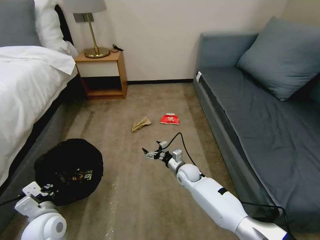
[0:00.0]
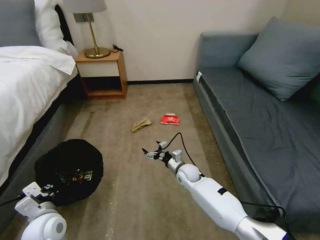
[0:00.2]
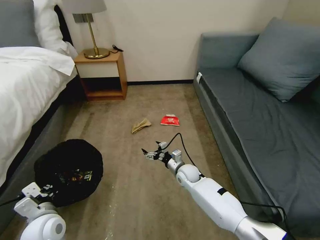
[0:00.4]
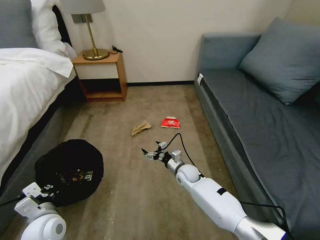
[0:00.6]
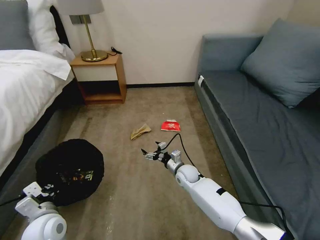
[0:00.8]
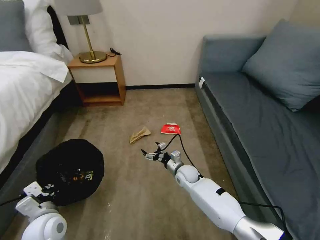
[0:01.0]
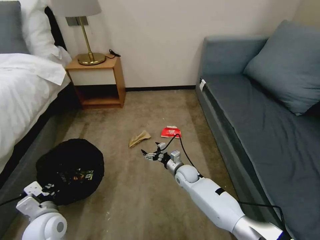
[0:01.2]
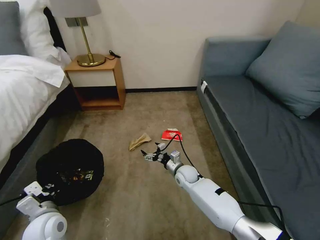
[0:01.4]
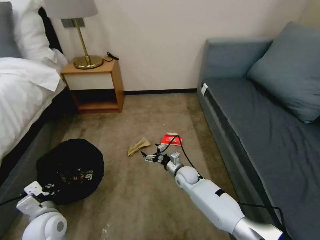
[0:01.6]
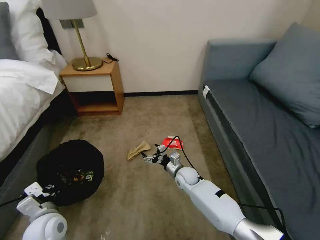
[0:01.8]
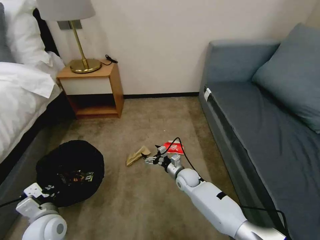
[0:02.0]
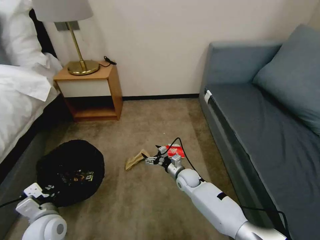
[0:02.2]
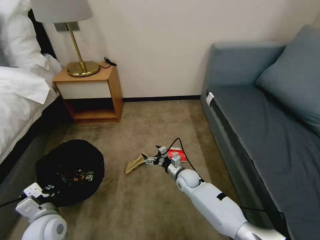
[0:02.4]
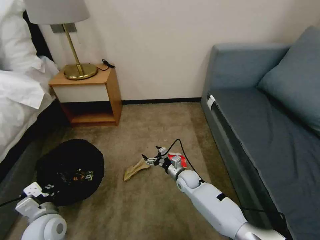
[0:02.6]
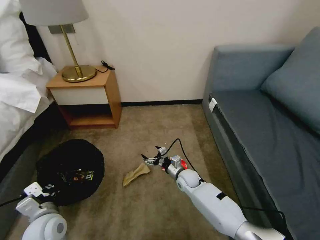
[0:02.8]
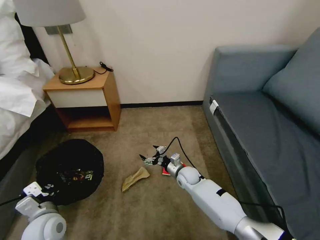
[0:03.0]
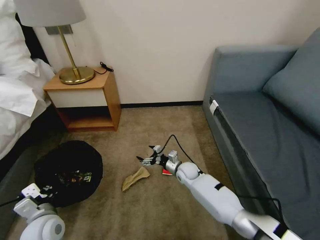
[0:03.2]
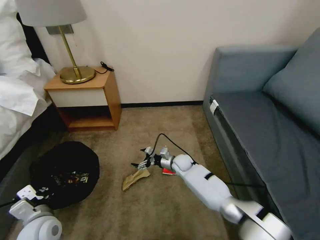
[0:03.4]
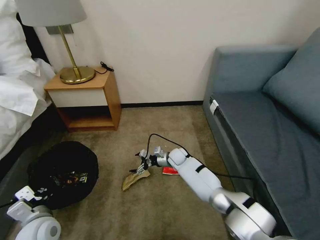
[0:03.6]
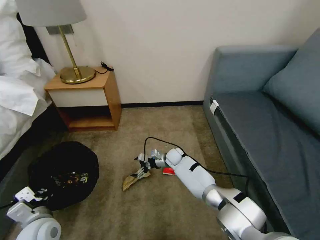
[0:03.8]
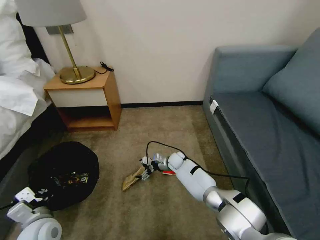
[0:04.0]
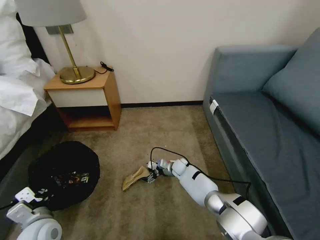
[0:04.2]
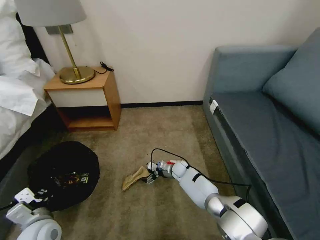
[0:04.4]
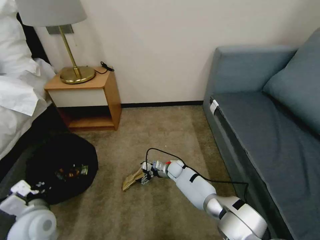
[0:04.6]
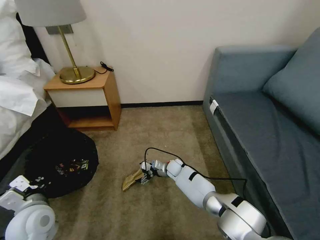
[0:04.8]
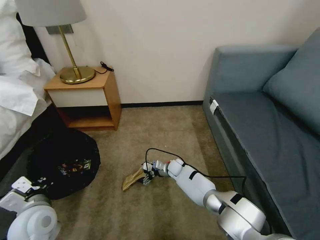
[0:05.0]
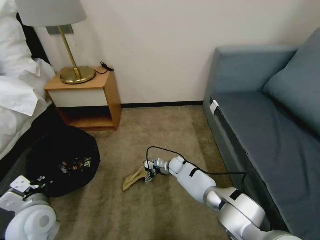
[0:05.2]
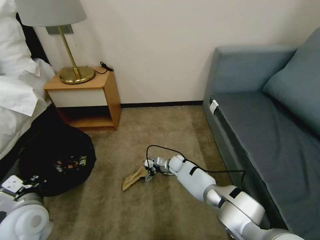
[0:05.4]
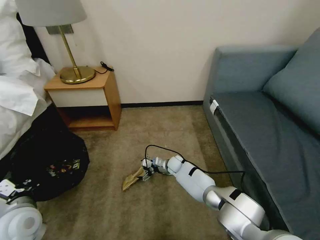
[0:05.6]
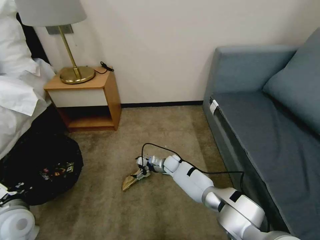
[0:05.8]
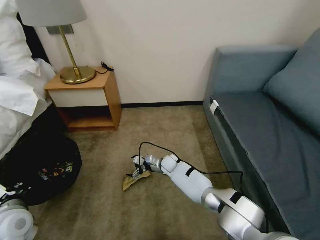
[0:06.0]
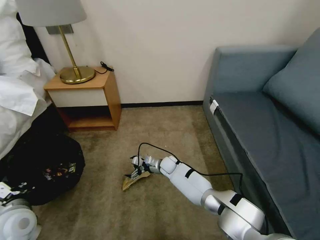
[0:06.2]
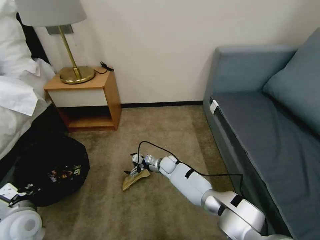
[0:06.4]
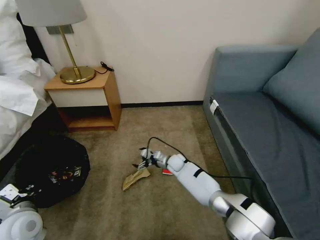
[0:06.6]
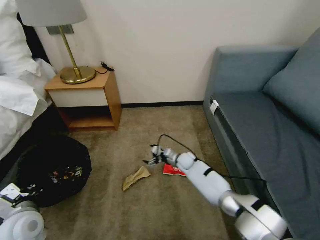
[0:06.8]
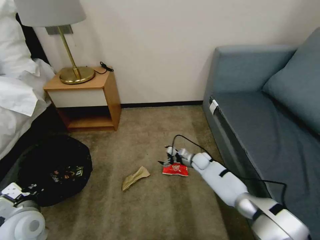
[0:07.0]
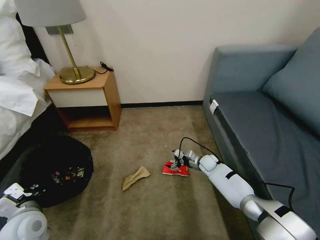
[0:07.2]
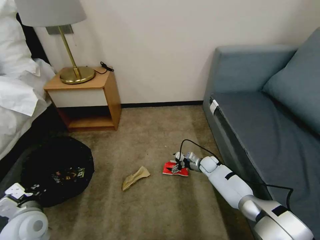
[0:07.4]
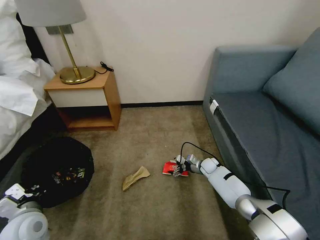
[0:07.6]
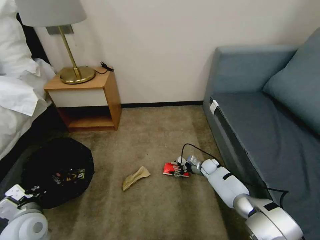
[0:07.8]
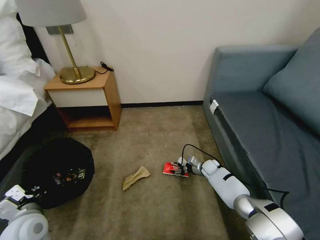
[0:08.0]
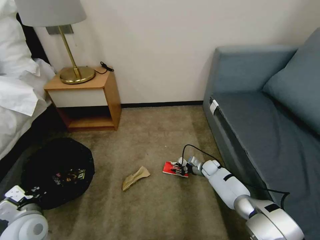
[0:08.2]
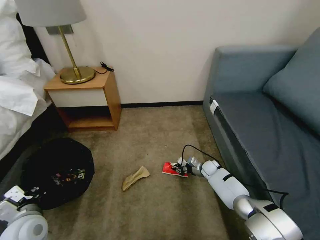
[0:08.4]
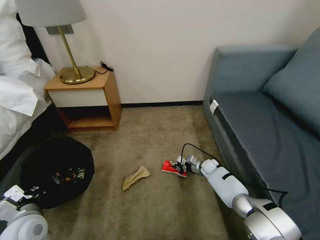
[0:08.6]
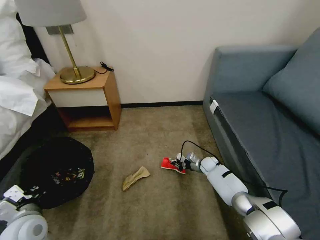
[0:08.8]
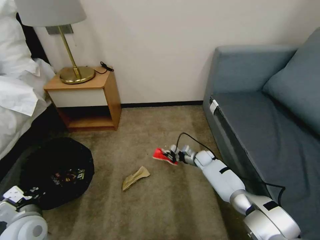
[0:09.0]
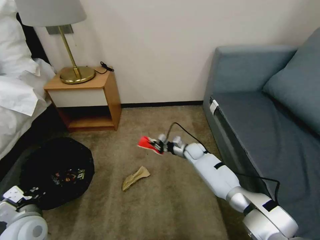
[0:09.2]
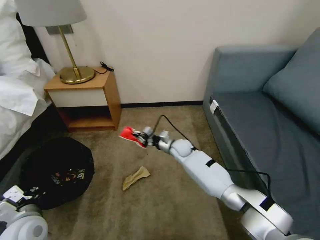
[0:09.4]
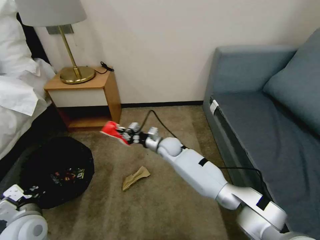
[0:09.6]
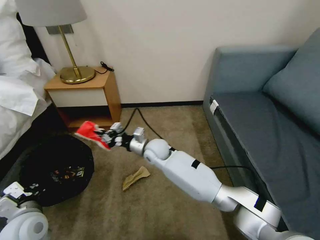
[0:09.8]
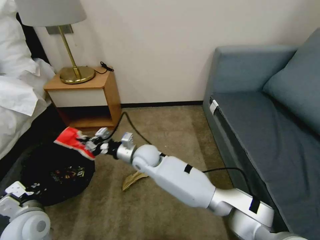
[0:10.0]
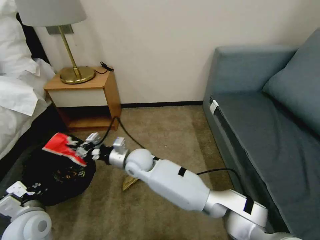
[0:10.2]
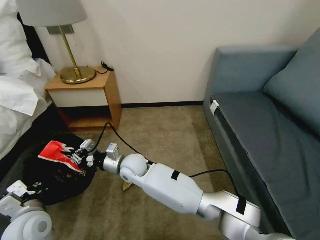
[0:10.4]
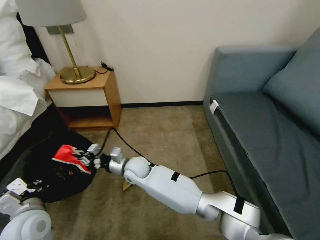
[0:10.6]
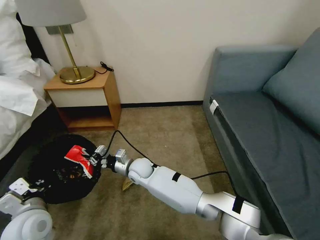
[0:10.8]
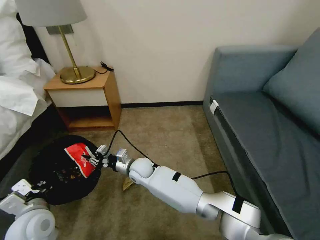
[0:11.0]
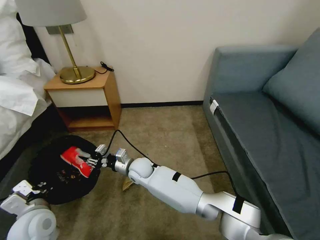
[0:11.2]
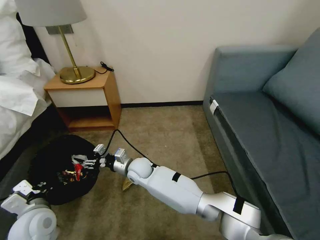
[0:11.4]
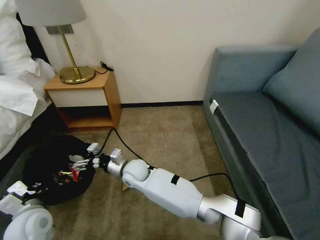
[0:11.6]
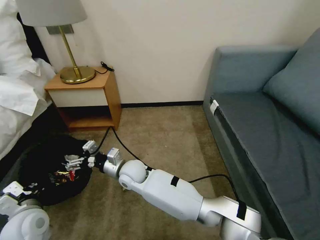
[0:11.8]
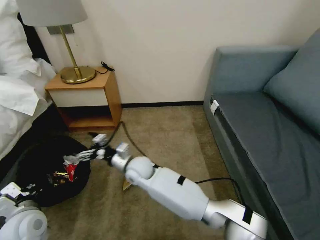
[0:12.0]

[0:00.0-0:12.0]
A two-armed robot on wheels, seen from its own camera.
Task of the whole recording: Pick up the trash bin, then pick up the garbage on the floor and place it into the trash bin.
0:03.0 to 0:04.4: The right gripper goes some 10 cm forward and downward.
0:04.4 to 0:06.0: The two grippers go about 5 cm to the left.
0:06.0 to 0:07.6: The right gripper travels to the right by roughly 20 cm.
0:07.6 to 0:09.0: The right gripper closes.
0:09.0 to 0:10.4: The right gripper travels to the left and upward by some 35 cm.
0:10.4 to 0:12.0: The right gripper opens its fingers.

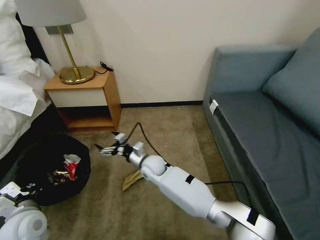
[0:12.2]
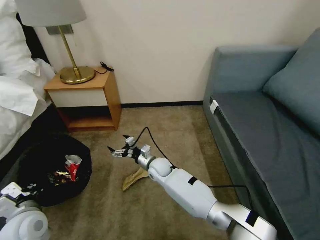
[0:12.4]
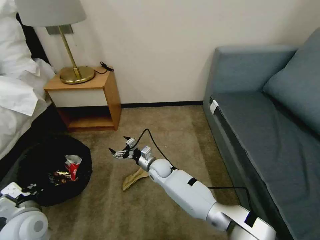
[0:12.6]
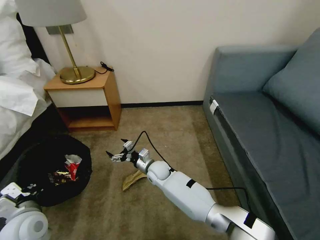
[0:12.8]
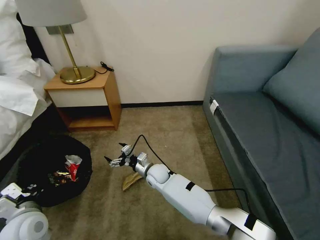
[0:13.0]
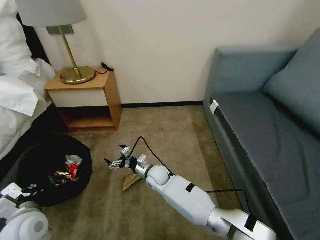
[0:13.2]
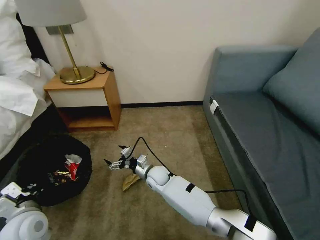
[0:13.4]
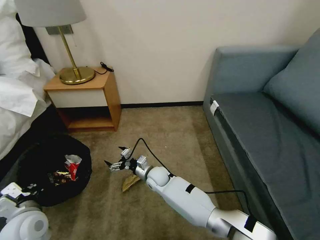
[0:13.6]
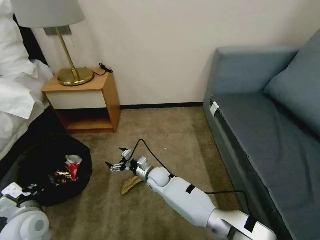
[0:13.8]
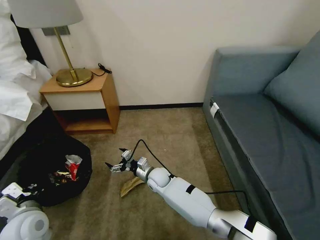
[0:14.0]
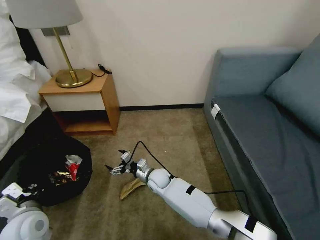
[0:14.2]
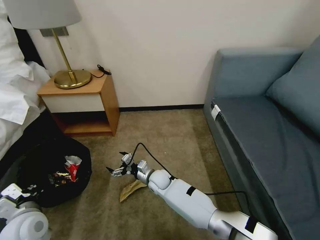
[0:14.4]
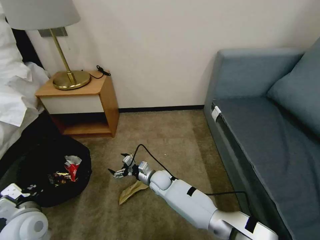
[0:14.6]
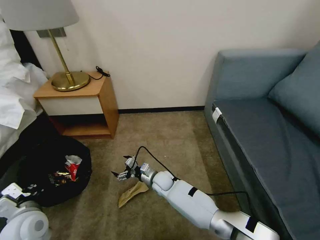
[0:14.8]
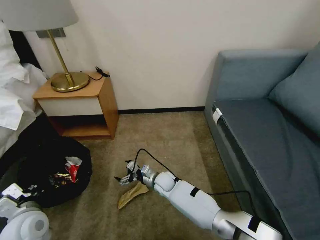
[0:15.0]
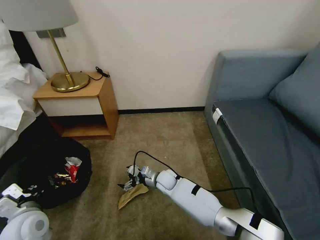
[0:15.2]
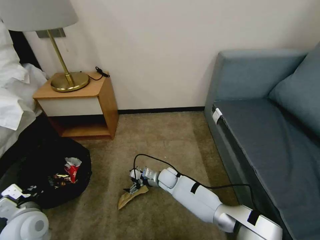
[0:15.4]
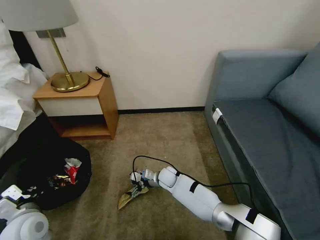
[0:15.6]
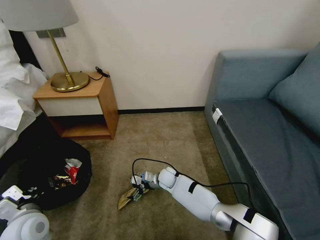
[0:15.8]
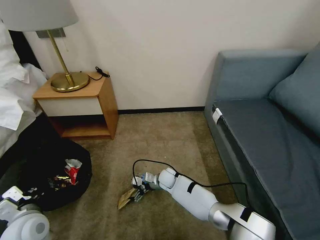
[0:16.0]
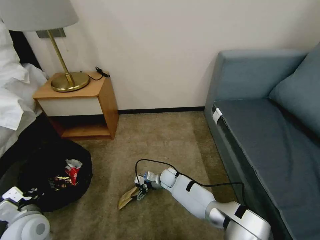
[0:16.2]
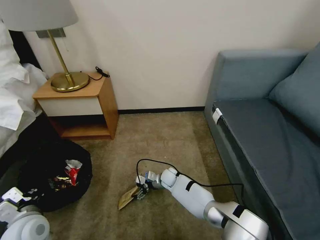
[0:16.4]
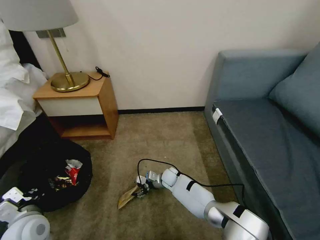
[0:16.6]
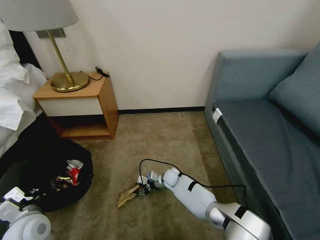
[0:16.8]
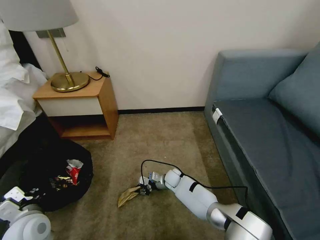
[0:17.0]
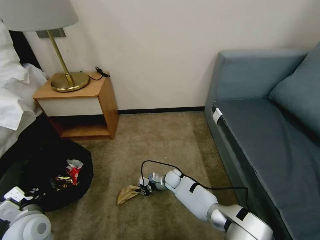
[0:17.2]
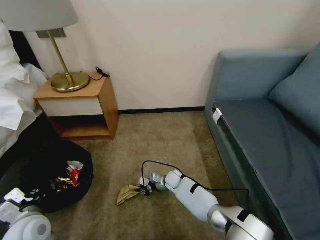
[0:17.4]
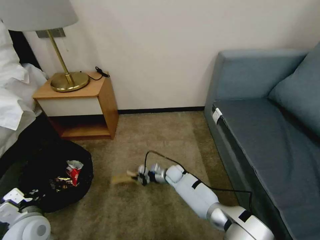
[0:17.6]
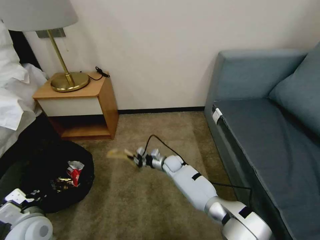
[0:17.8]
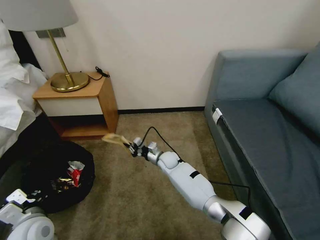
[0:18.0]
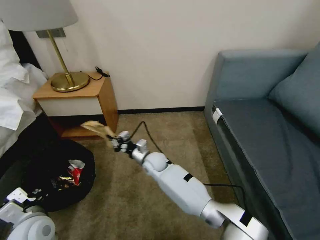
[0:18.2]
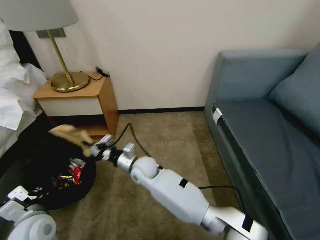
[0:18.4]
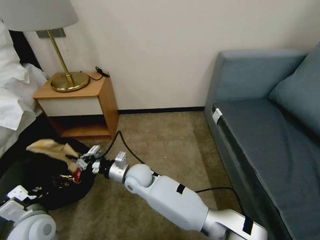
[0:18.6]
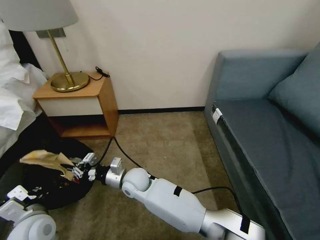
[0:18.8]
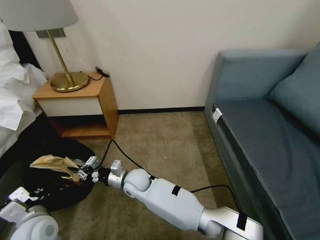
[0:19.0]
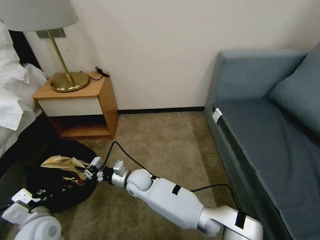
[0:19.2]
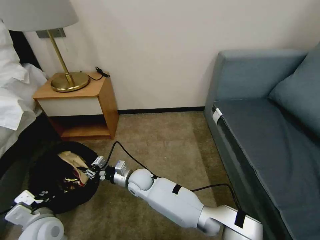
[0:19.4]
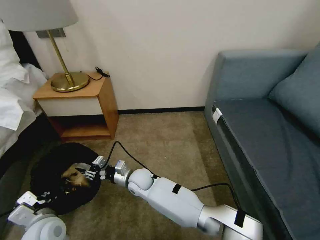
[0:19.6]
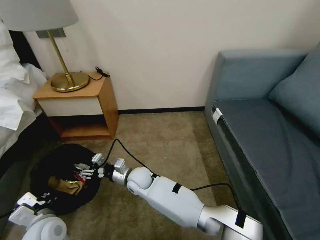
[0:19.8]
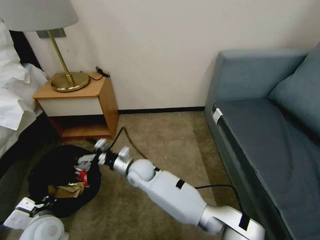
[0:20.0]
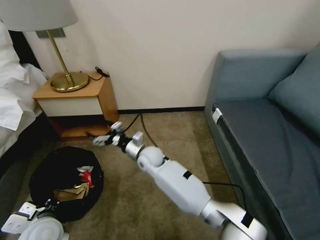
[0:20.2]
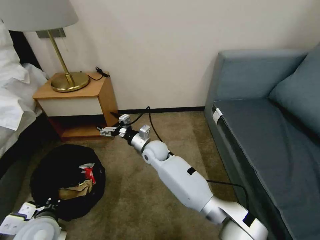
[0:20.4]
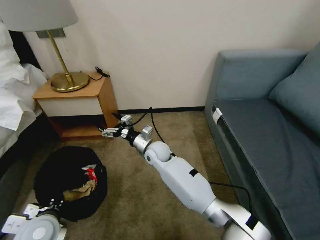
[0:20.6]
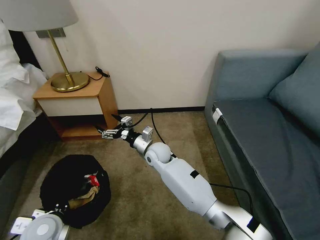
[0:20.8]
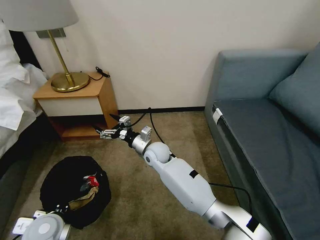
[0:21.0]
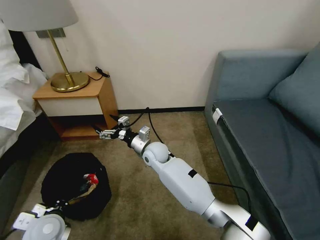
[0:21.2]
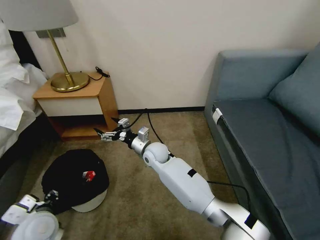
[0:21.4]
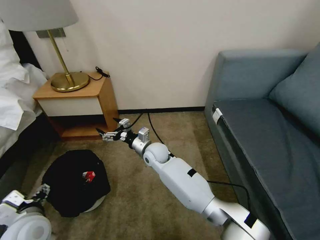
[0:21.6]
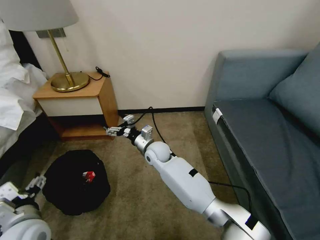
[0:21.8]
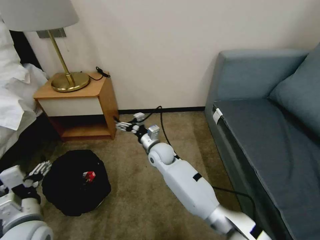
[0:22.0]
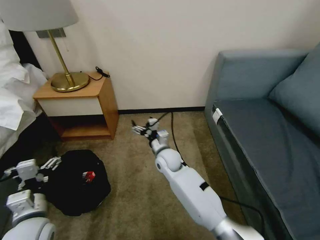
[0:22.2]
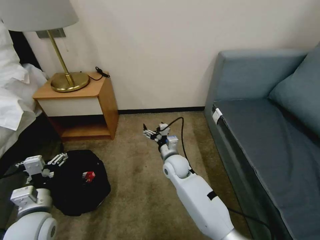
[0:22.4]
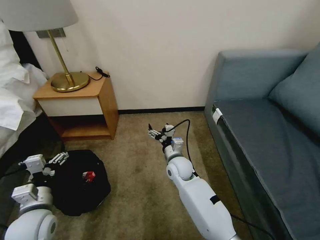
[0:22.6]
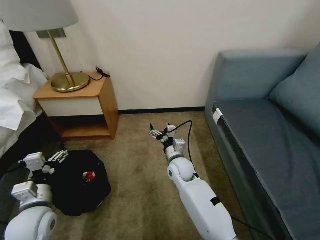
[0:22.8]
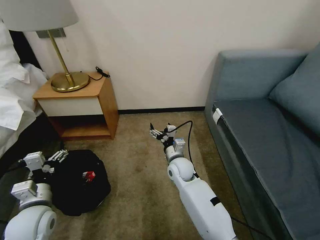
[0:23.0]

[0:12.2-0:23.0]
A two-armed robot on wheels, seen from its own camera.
Task of the whole recording: Pick up the trash bin, then pick up the garbage on the floor and place it into the trash bin.
0:12.2 to 0:13.8: The right gripper shifts some 5 cm downward.
0:15.2 to 0:16.8: The right gripper changes place by about 5 cm, and closes its fingers.
0:16.8 to 0:18.4: The right gripper travels upward and to the left by about 20 cm, and closes.
0:18.4 to 0:20.0: The right gripper opens its fingers.
0:20.0 to 0:21.4: The left gripper opens; the right gripper moves forward and to the right, about 10 cm.
0:21.4 to 0:23.0: The right gripper travels to the right by some 10 cm, while the left gripper opens its fingers.
